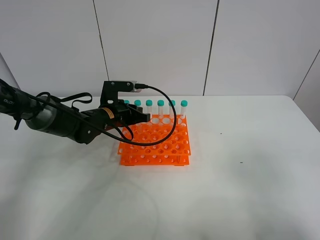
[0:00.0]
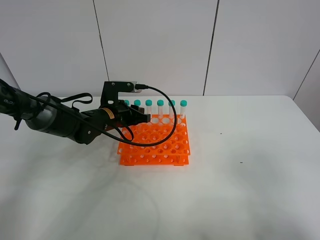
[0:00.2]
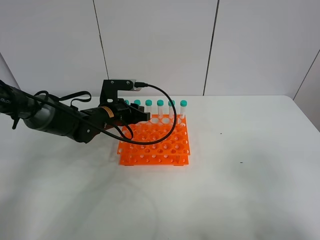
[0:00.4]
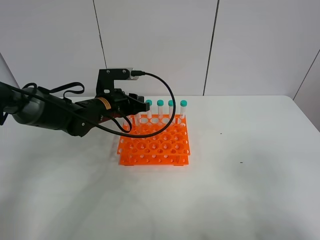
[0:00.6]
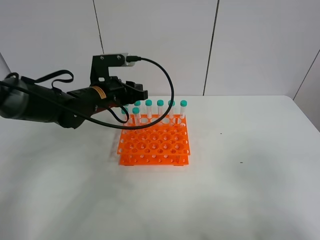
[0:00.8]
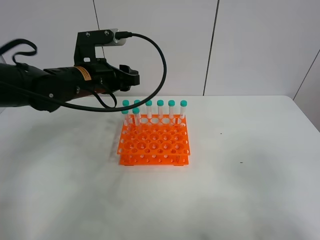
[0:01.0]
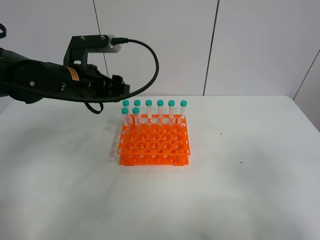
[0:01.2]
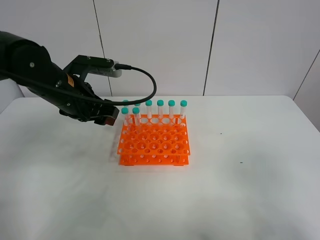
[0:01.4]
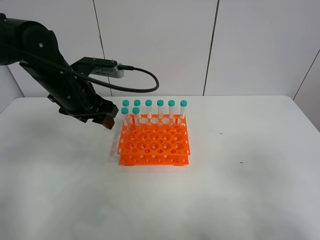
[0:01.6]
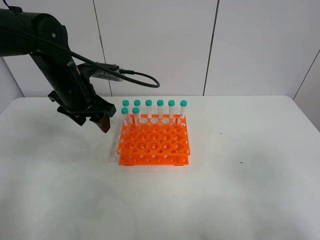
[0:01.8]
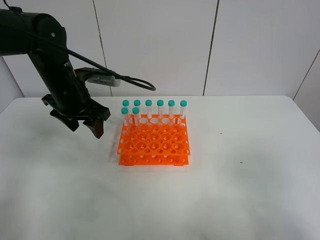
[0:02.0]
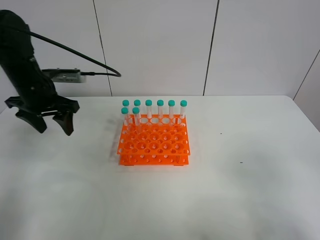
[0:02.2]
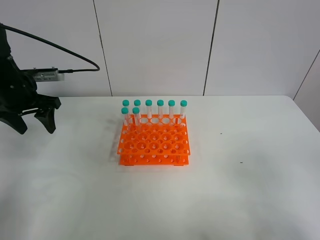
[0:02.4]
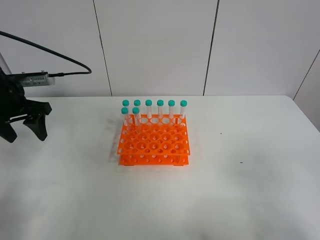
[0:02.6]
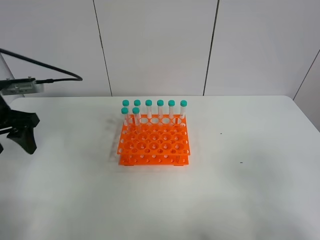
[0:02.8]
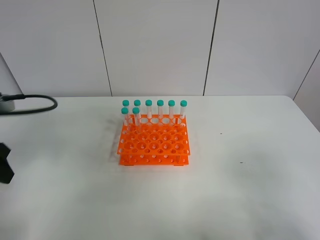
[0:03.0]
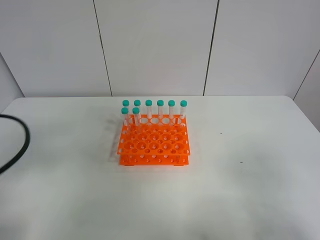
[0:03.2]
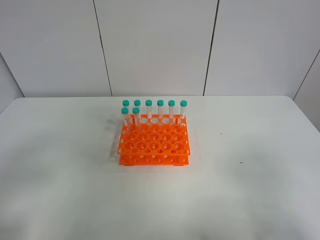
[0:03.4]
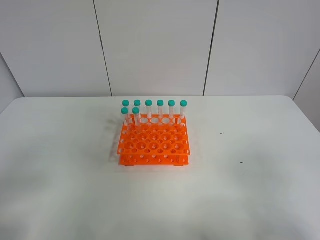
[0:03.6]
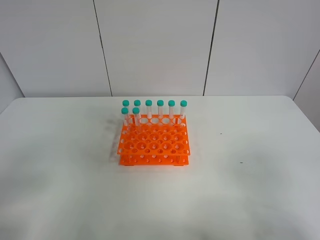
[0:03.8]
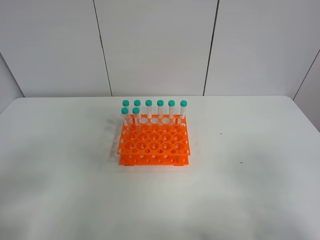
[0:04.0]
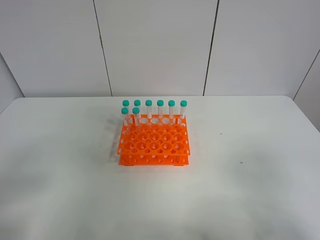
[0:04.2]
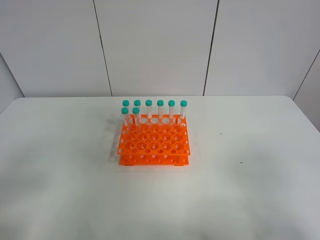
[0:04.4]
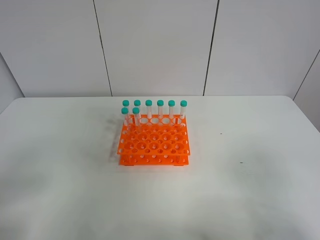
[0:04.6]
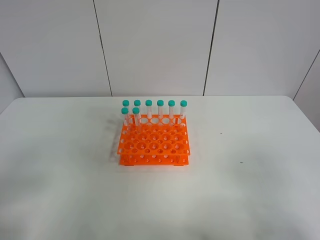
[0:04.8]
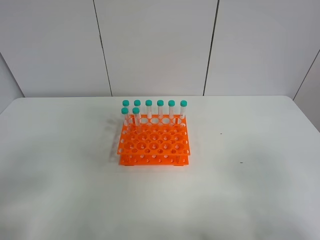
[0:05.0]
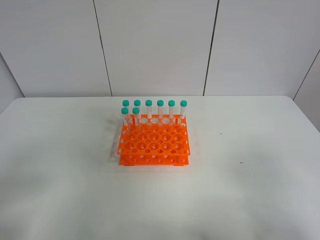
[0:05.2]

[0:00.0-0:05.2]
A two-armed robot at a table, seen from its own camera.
Task of the whole recording: Put the test tube on the table back onto the test tube rack.
0:00.0 to 0:01.8: The left gripper shifts roughly 10 cm upward, and opens its fingers.
0:01.8 to 0:03.4: The left gripper goes roughly 35 cm backward and to the left.

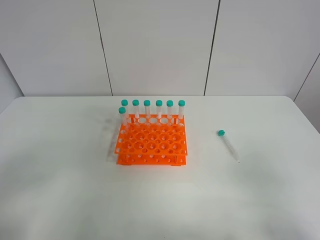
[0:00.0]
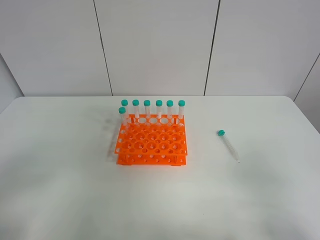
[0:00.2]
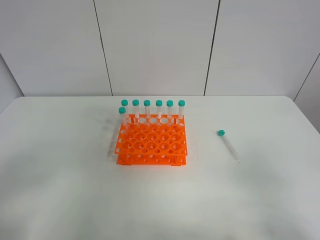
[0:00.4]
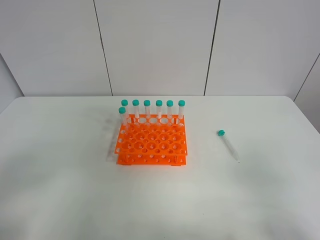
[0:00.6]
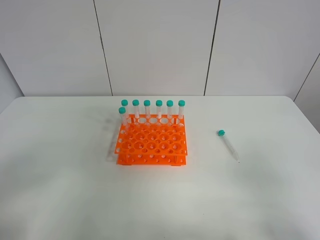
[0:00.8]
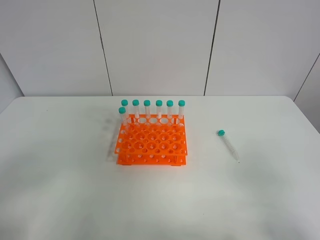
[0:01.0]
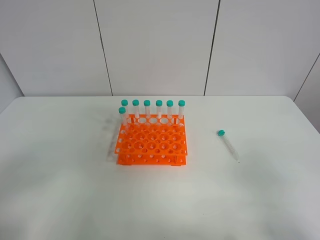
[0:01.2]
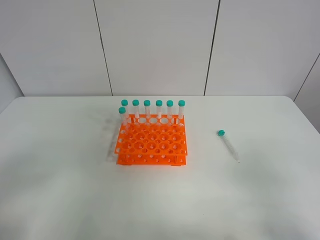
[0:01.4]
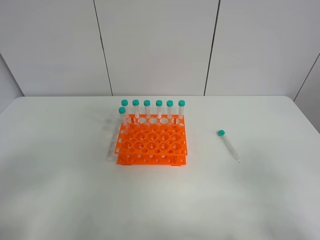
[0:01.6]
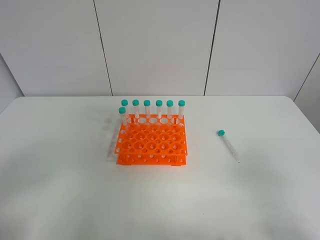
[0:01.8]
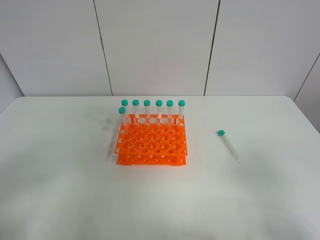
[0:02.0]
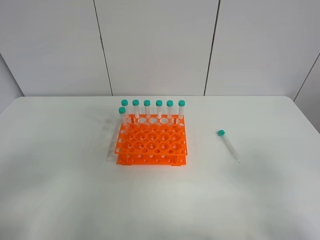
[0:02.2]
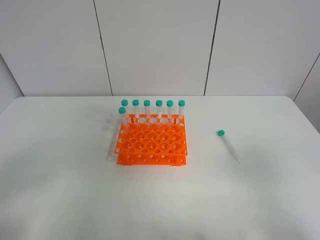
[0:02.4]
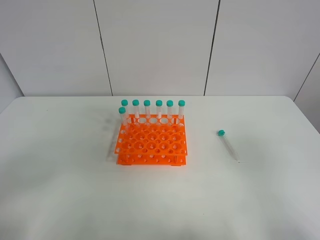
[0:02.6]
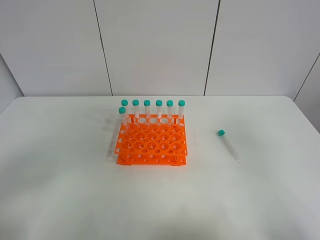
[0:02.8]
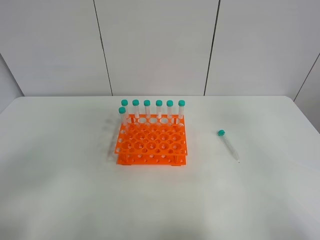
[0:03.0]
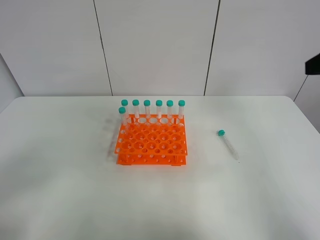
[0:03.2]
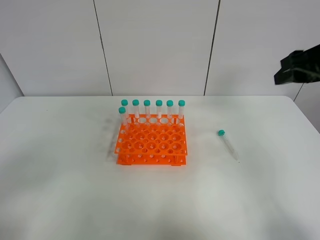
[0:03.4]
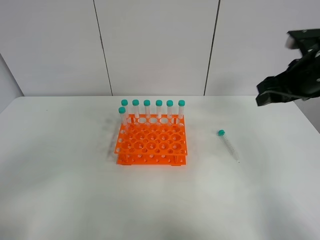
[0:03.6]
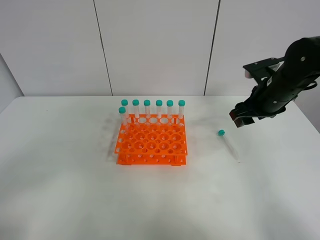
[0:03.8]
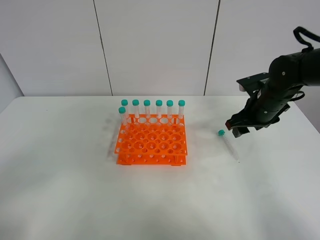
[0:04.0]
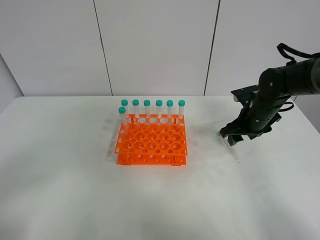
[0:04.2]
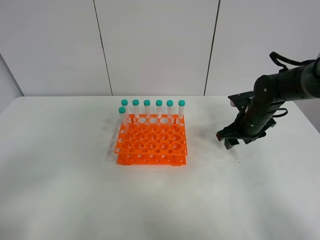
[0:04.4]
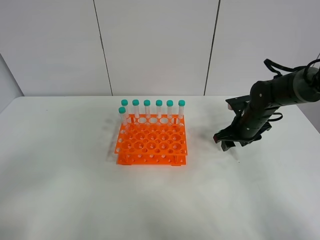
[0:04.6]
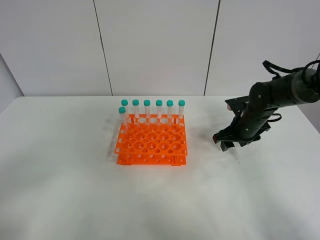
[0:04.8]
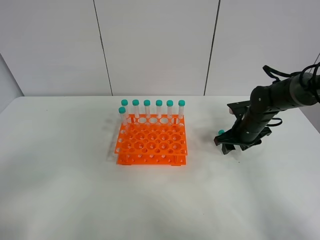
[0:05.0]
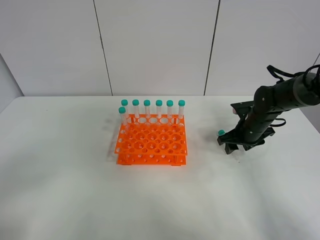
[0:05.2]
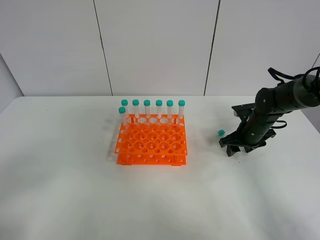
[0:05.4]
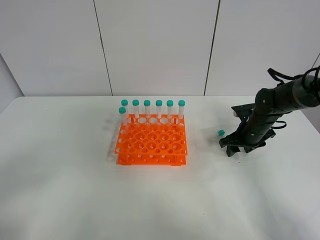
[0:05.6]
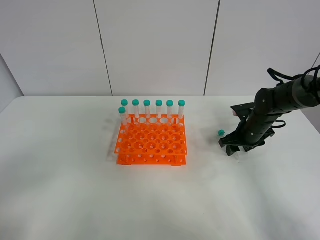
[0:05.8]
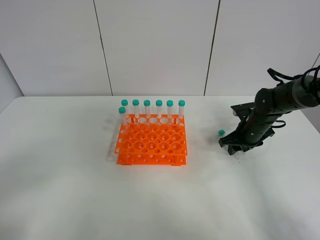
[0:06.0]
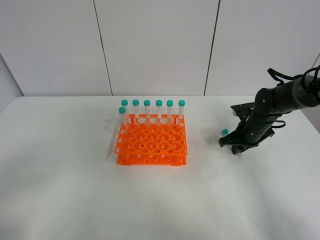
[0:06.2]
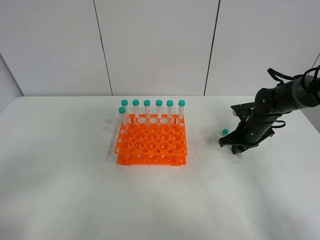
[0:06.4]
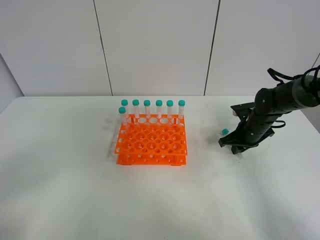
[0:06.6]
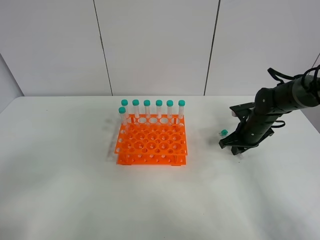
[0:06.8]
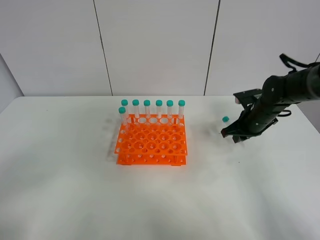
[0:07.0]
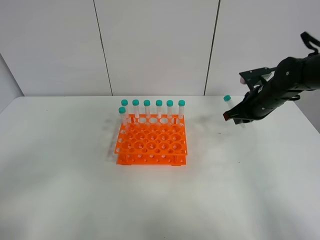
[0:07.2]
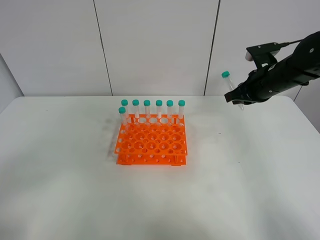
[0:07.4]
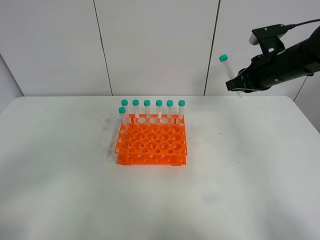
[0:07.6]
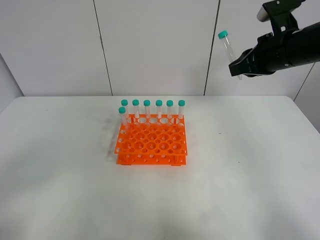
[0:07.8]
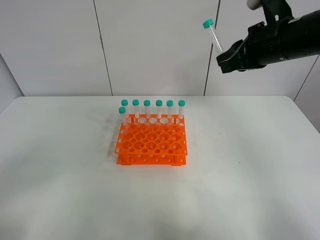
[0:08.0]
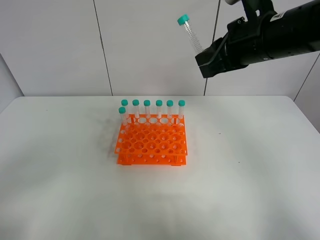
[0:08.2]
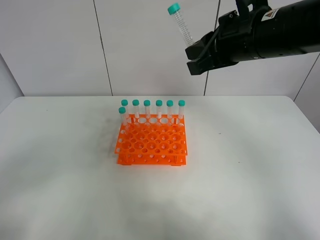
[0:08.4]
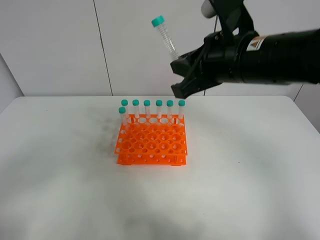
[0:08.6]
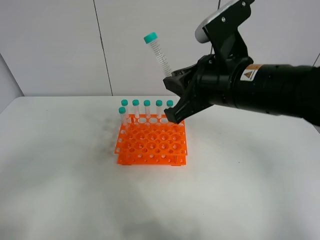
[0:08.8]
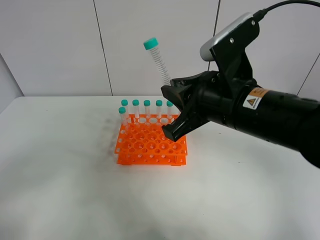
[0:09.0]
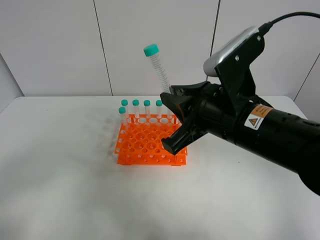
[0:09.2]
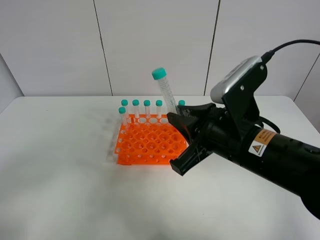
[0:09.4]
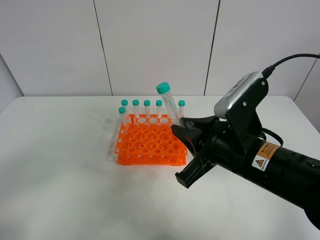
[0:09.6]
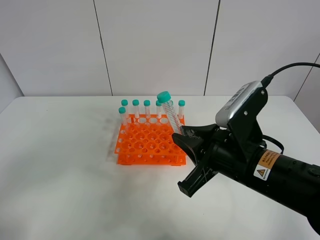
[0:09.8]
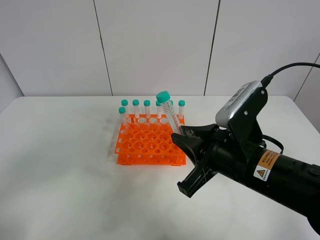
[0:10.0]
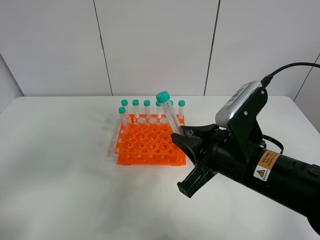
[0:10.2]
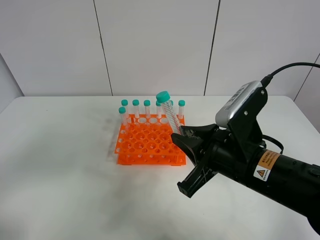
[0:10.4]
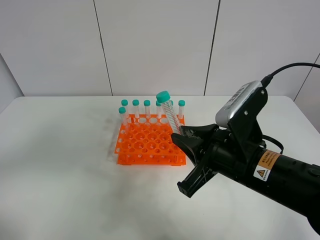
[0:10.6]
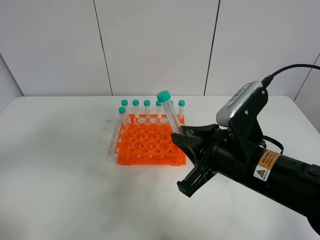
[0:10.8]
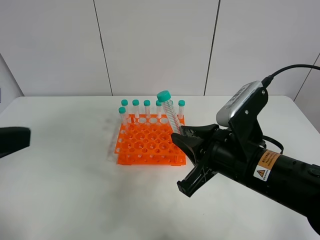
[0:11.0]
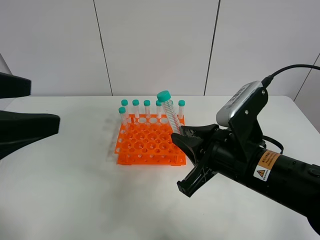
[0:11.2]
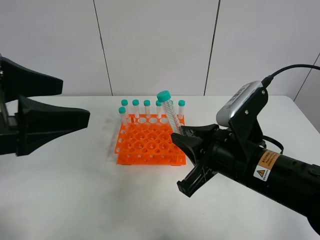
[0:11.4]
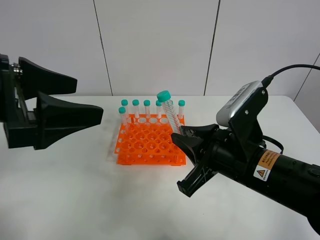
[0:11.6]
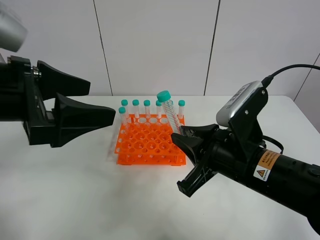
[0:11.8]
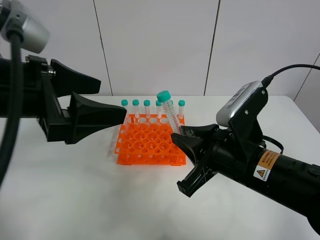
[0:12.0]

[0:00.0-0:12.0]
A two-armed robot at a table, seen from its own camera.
Task of the whole recording: Put the test tube on the table back onto the test tube rack.
Step, 0:00.0 to 0:07.2: Pick up the test tube with the right gripper.
0:00.0 to 0:01.6: The two grippers keep their place.
0:01.6 to 0:03.0: The right gripper moves forward and upward, some 20 cm, and opens up.
0:03.0 to 0:04.4: The right gripper is displaced downward and forward by roughly 35 cm.
0:04.4 to 0:06.0: The grippers move only a little.
0:06.0 to 0:07.6: The right gripper heads upward, covering roughly 20 cm.
0:07.6 to 0:09.0: The right gripper shifts some 20 cm backward and to the left.
0:09.0 to 0:10.4: The right gripper heads downward, covering roughly 5 cm.
0:10.4 to 0:12.0: The left gripper is displaced forward and to the right by about 20 cm.

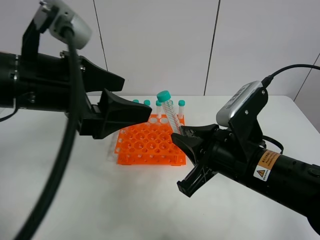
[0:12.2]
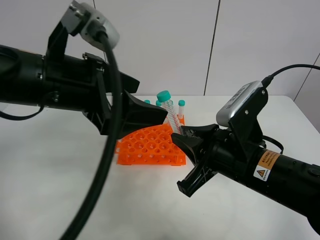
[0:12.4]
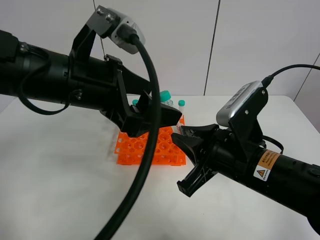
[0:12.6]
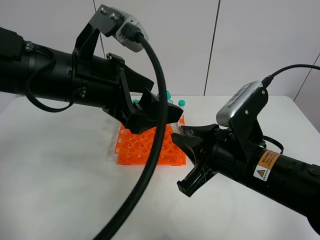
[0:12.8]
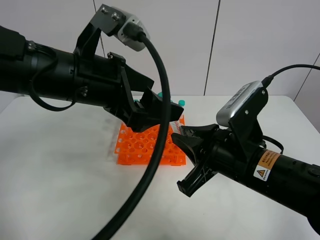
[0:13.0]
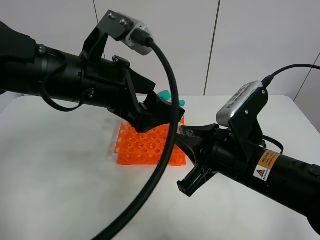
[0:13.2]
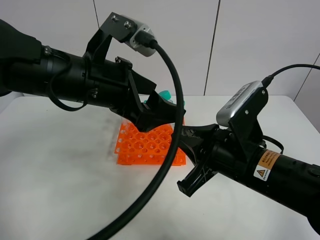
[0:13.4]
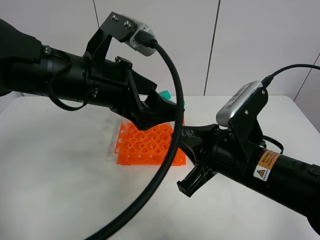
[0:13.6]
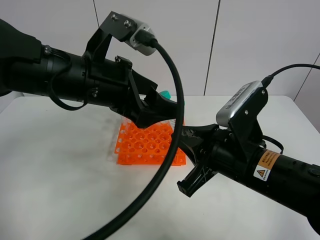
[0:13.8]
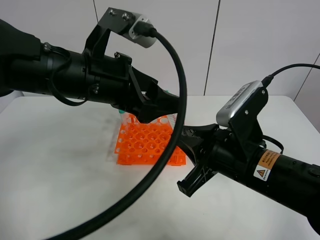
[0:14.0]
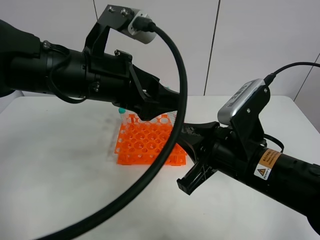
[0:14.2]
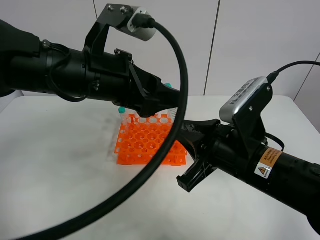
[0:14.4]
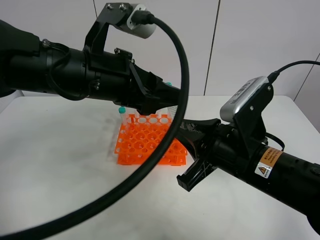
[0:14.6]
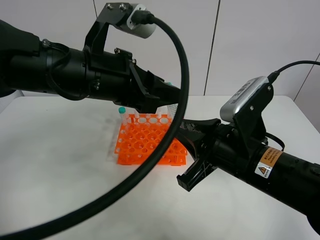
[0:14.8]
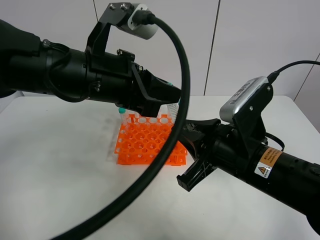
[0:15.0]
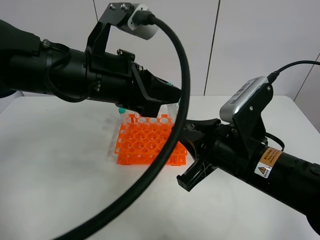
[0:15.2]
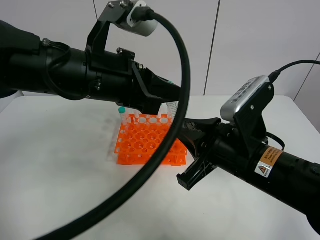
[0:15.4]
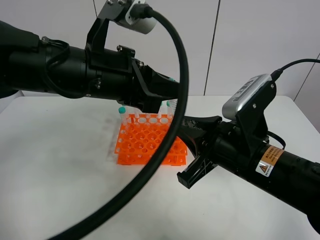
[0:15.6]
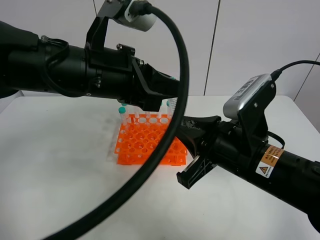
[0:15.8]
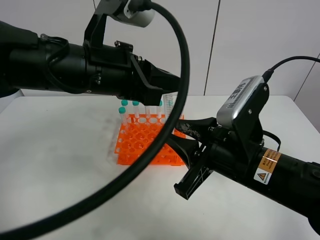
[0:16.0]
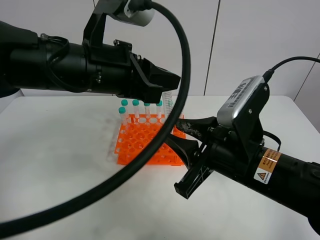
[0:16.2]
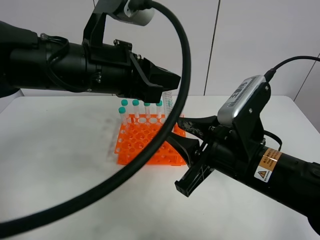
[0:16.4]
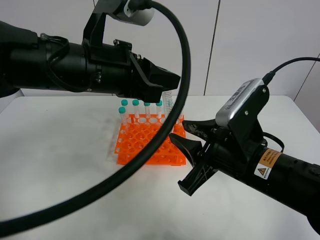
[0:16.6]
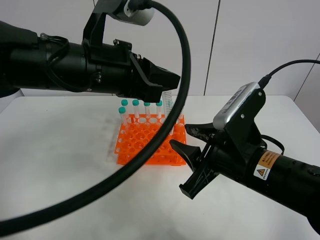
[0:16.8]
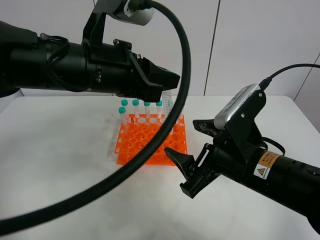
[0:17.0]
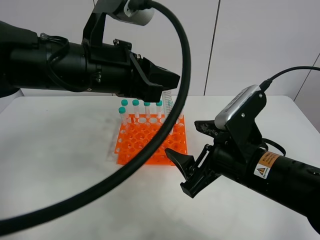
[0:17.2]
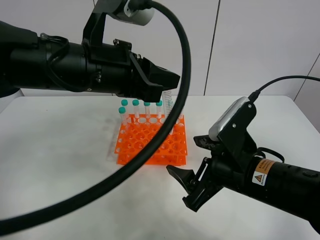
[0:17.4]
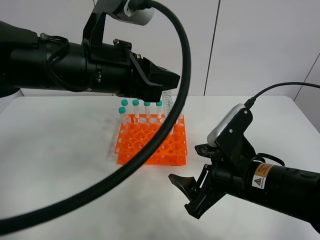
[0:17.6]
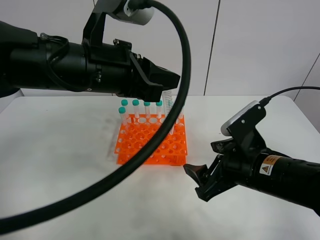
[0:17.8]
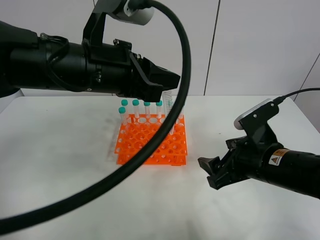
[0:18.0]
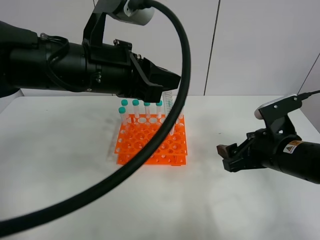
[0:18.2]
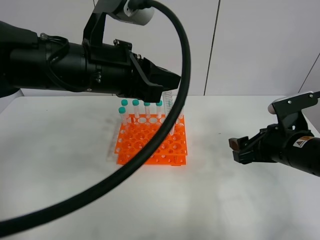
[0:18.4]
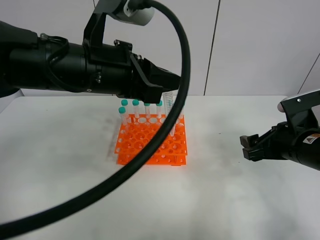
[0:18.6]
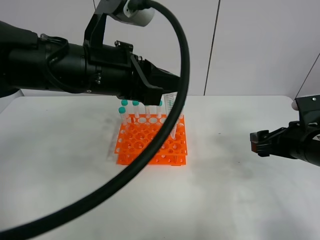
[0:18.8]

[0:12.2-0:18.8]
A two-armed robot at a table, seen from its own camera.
Task of the whole recording: Put the test tube on the table back onto the test tube rack.
Step, 0:12.2 to 0:17.6: Move the test tube from the right gripper to the left gripper.
0:12.2 to 0:13.8: The left gripper ends up approximately 5 cm from where it was.
0:13.8 to 0:15.4: The left gripper closes its fingers.
0:15.4 to 0:17.2: The right gripper opens up.
0:17.2 to 0:18.8: The right gripper is displaced to the right by some 15 cm.
